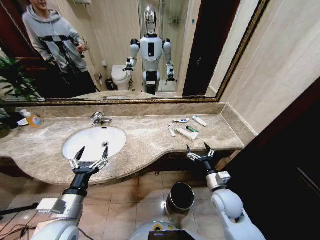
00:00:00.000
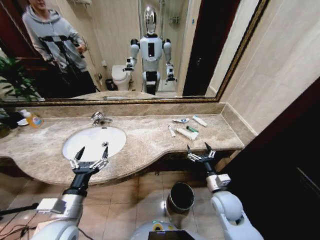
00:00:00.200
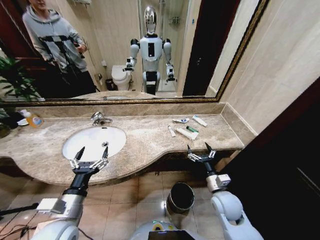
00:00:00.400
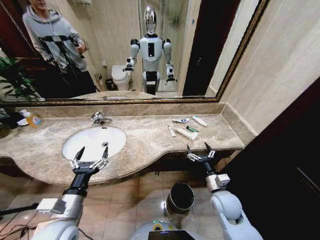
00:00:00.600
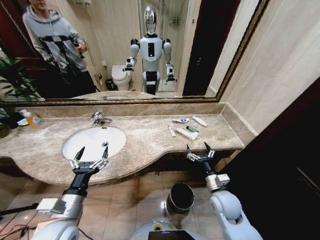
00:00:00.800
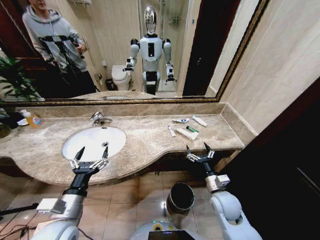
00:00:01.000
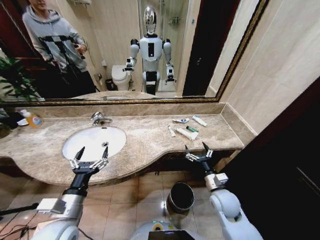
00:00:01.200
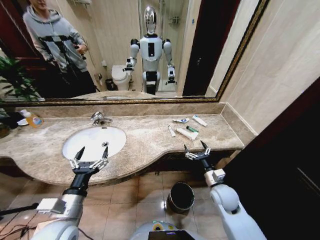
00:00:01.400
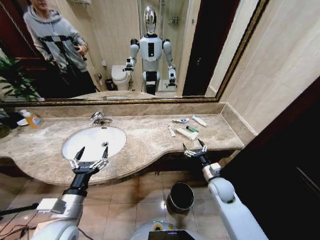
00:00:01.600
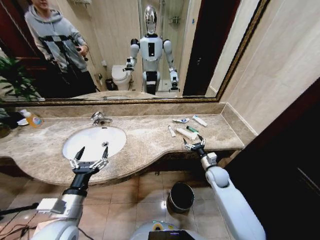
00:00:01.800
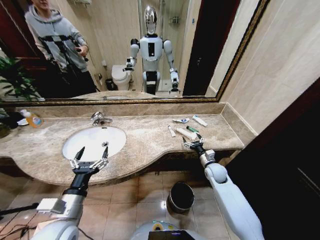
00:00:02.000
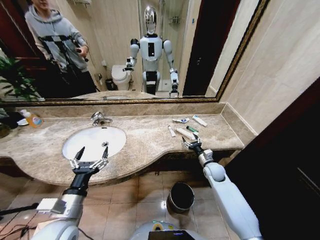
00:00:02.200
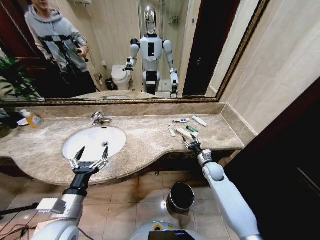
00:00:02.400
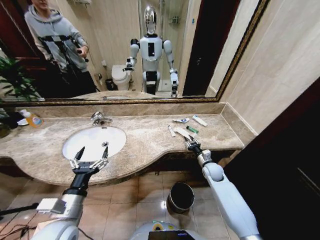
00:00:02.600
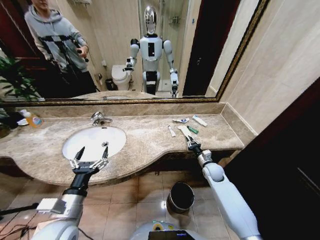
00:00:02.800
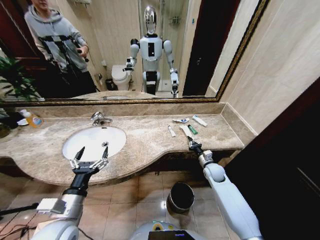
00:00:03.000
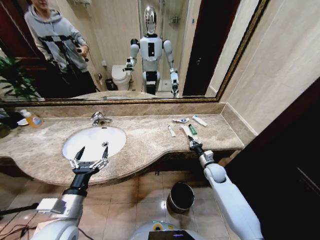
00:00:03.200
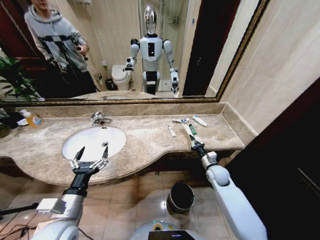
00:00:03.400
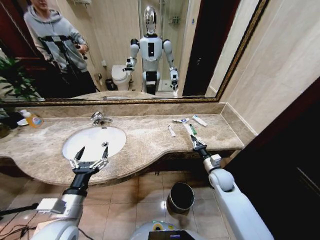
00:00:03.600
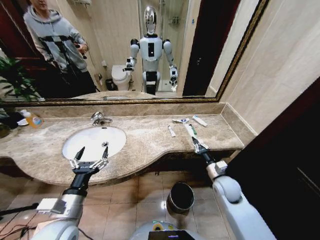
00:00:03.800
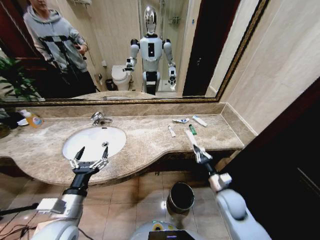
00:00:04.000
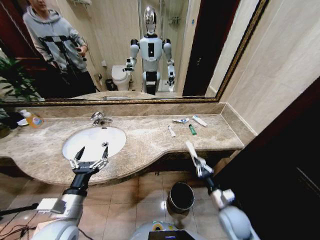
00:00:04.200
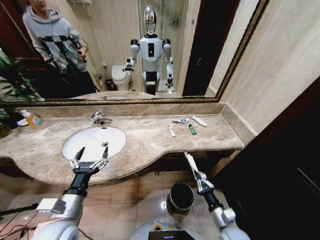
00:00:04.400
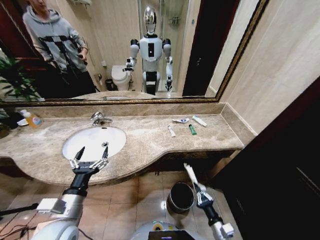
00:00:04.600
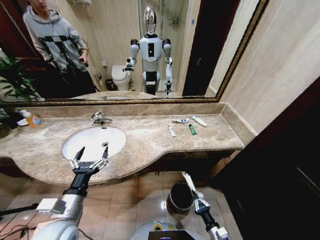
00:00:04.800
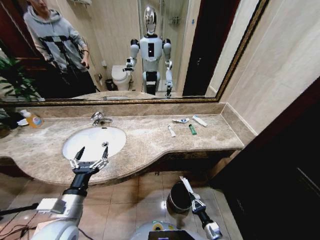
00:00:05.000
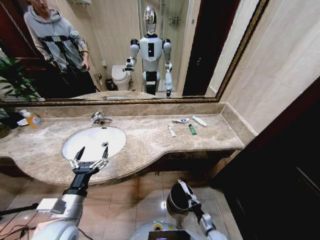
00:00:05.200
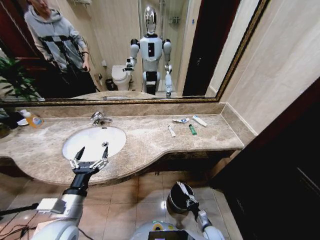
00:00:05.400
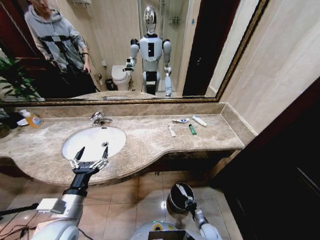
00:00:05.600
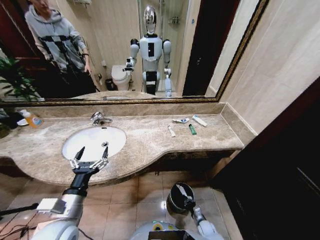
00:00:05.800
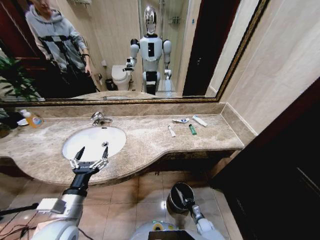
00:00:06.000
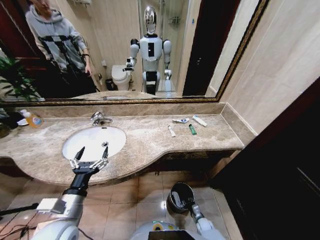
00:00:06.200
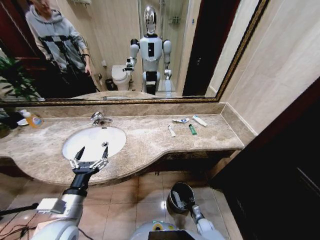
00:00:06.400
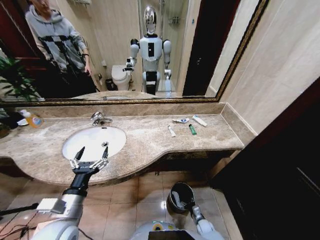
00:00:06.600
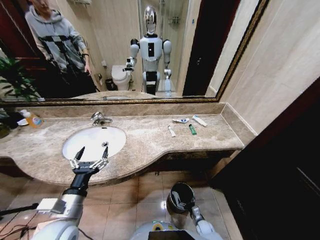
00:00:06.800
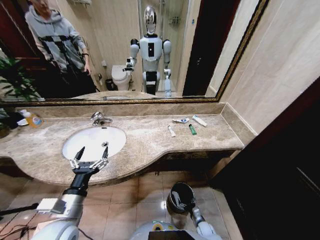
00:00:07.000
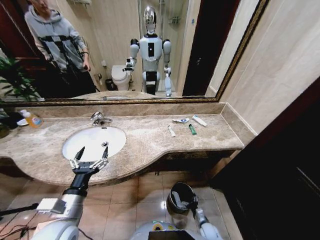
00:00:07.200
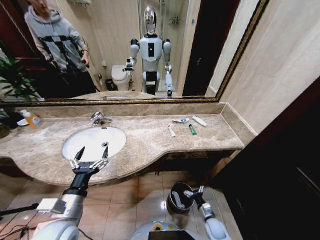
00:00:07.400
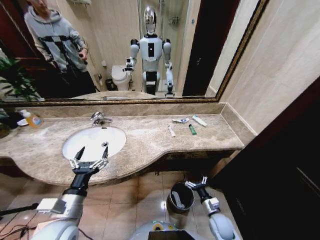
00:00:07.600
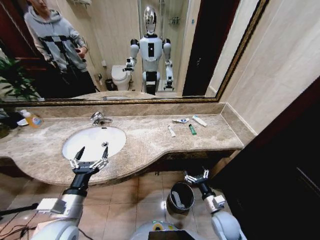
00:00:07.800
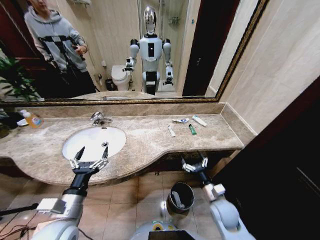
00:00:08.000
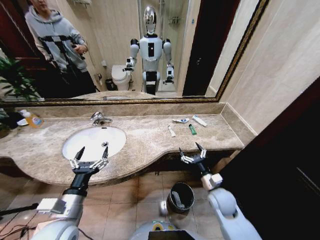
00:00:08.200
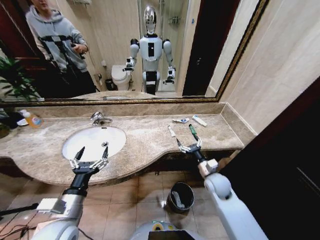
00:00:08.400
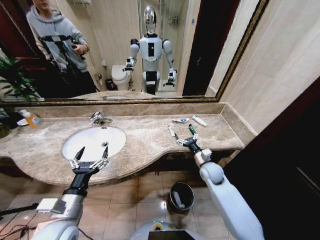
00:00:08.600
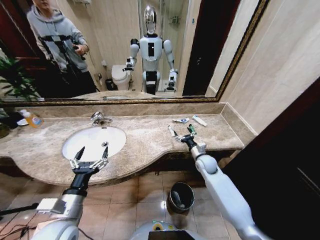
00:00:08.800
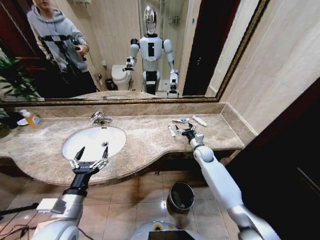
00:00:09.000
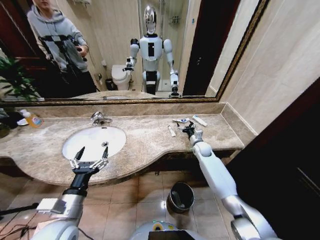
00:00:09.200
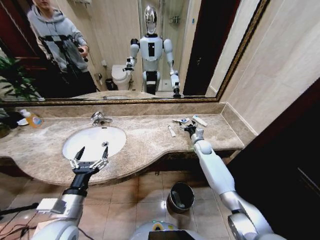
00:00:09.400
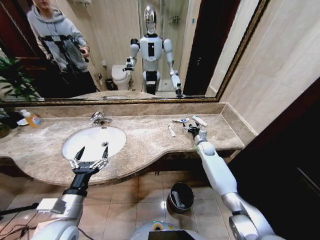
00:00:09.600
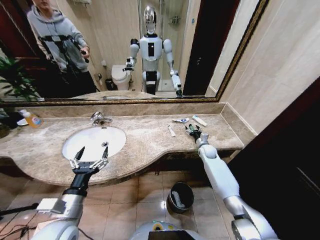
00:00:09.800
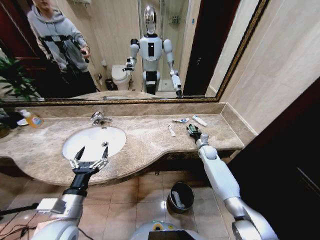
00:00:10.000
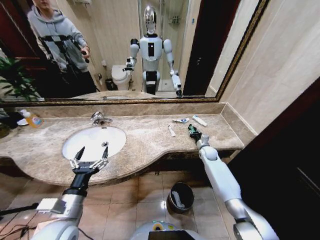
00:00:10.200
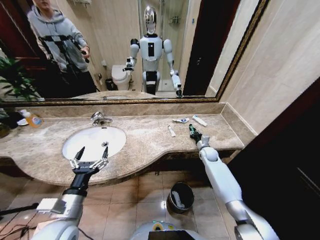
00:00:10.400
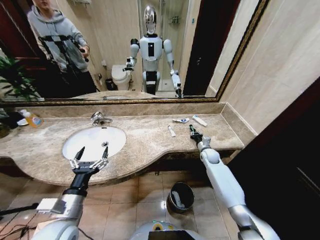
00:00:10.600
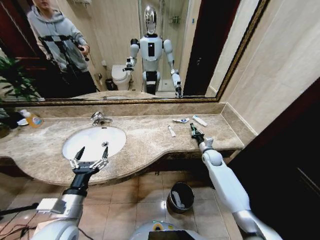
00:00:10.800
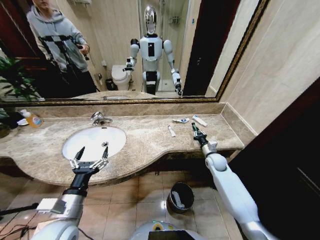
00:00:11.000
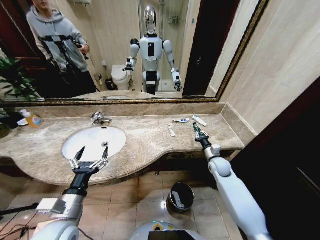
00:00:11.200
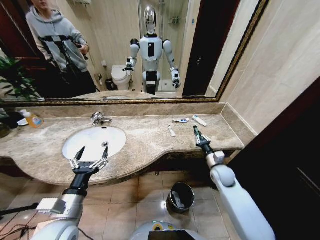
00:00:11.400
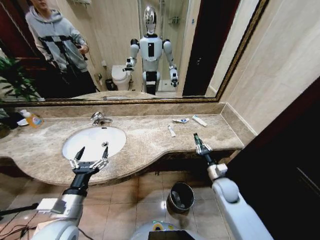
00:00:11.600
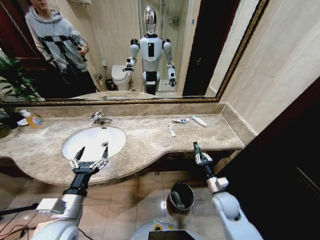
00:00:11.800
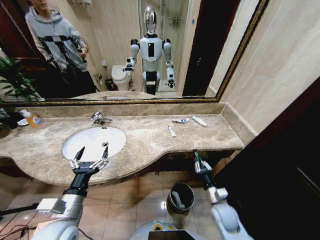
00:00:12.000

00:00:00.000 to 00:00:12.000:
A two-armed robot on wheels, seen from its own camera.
Task of the whole recording: Pick up the trash from the sink and place it in the trash bin.
00:00:01.600 to 00:00:03.000: The right gripper heads forward, covering approximately 10 cm, and closes up.
00:00:03.000 to 00:00:04.400: The right gripper goes approximately 25 cm backward.
00:00:04.400 to 00:00:06.000: The right gripper goes roughly 30 cm downward.
00:00:06.000 to 00:00:07.600: The right gripper travels upward by about 20 cm, and opens its fingers.
00:00:07.600 to 00:00:09.000: The right gripper is displaced forward and upward by roughly 30 cm.
00:00:09.000 to 00:00:10.400: The right gripper travels to the right by roughly 5 cm, and closes its fingers.
00:00:10.400 to 00:00:12.000: The right gripper moves backward, roughly 30 cm.

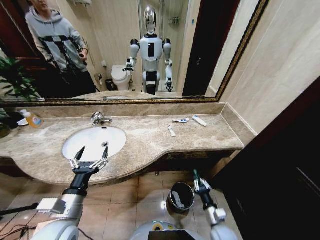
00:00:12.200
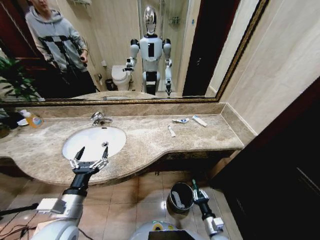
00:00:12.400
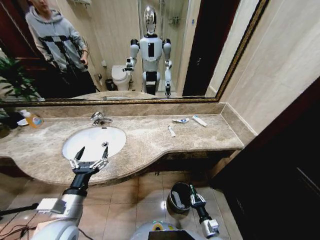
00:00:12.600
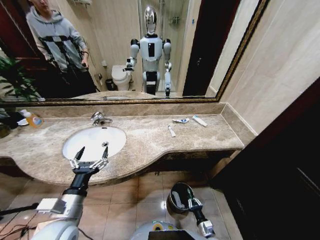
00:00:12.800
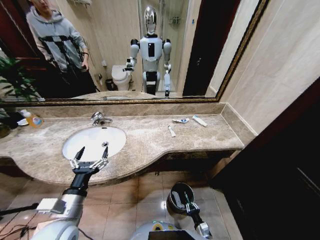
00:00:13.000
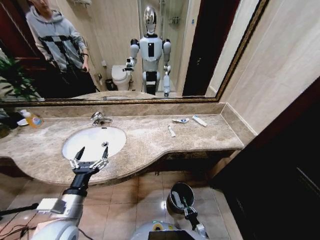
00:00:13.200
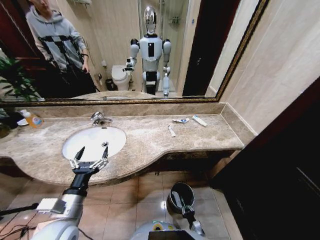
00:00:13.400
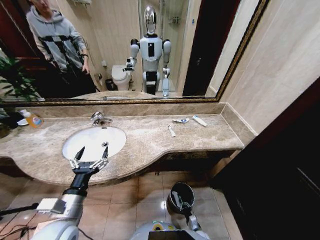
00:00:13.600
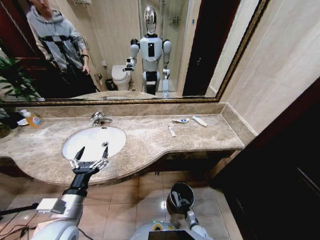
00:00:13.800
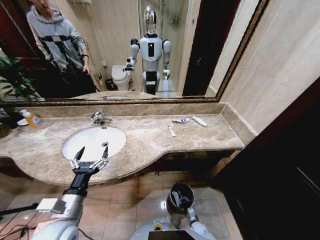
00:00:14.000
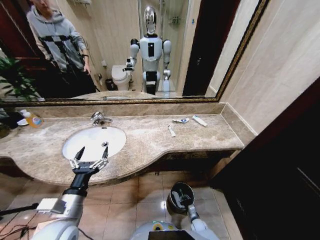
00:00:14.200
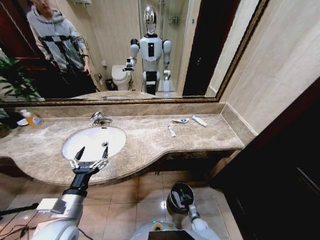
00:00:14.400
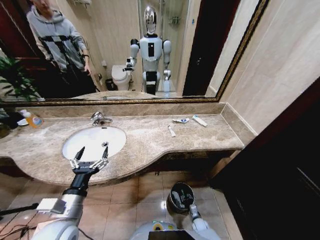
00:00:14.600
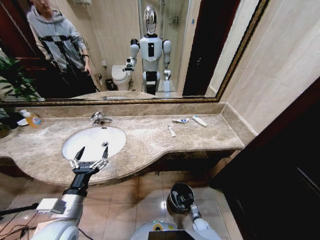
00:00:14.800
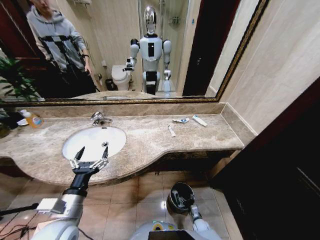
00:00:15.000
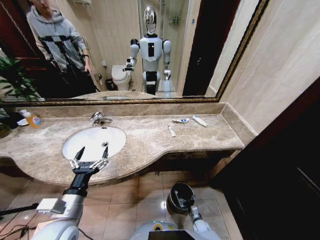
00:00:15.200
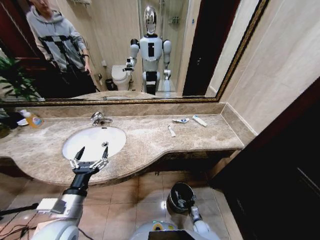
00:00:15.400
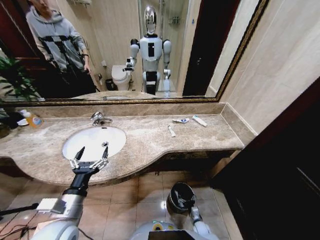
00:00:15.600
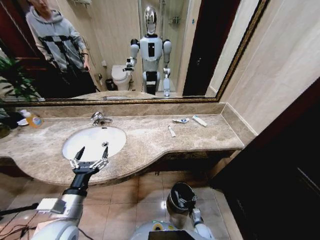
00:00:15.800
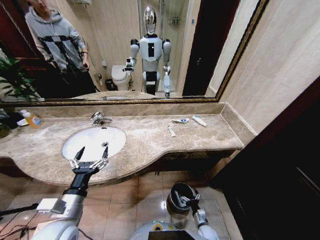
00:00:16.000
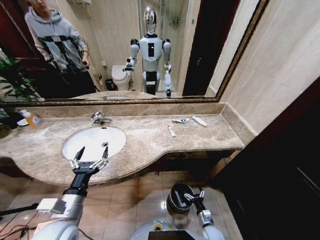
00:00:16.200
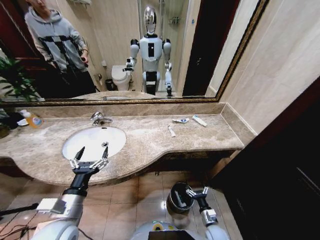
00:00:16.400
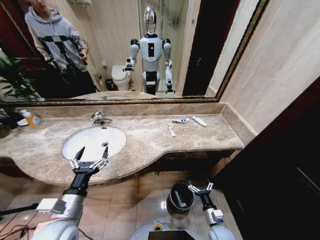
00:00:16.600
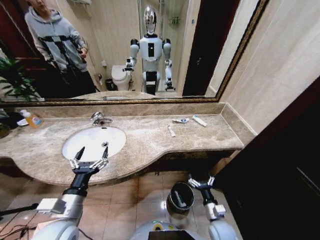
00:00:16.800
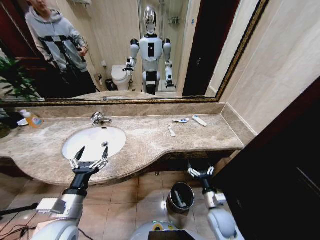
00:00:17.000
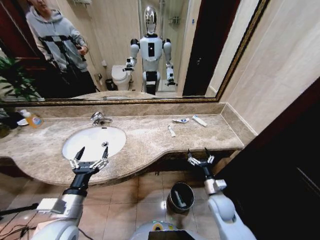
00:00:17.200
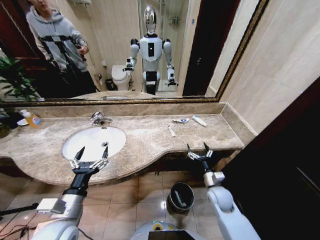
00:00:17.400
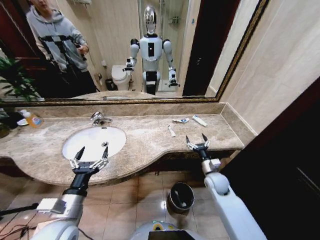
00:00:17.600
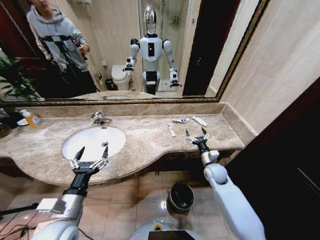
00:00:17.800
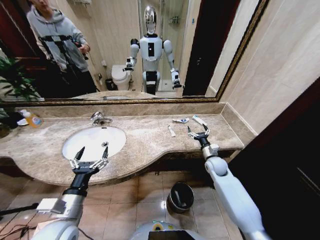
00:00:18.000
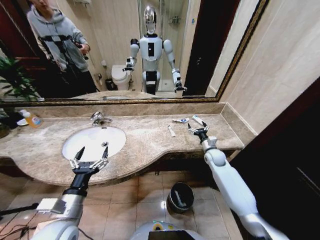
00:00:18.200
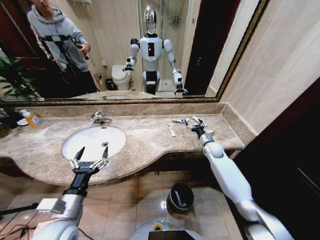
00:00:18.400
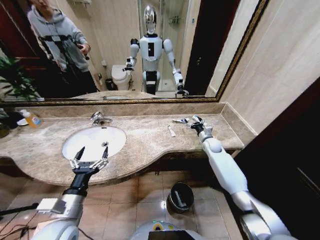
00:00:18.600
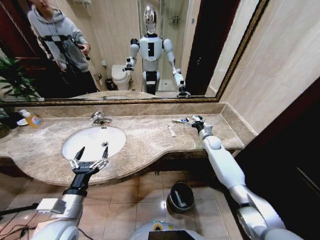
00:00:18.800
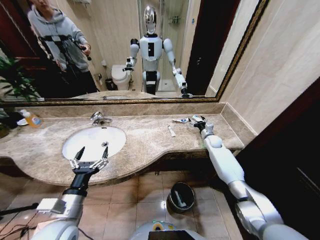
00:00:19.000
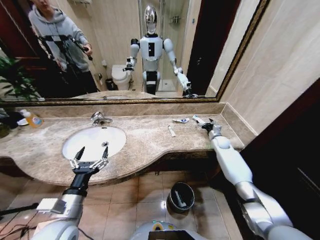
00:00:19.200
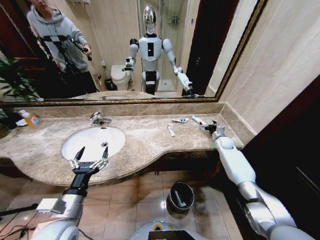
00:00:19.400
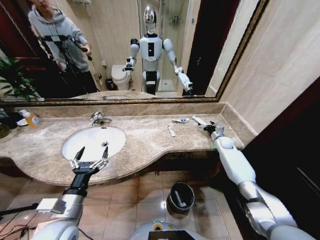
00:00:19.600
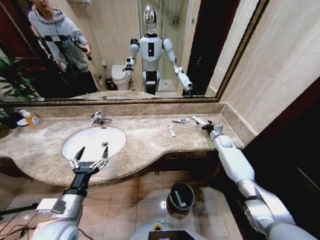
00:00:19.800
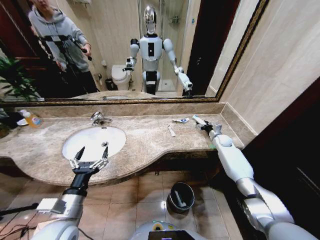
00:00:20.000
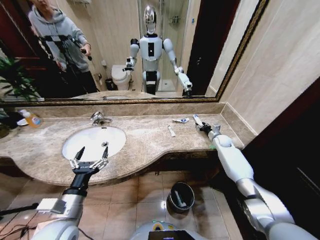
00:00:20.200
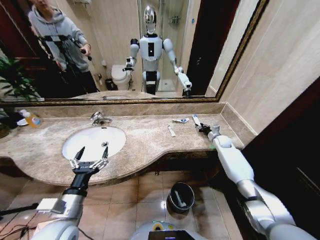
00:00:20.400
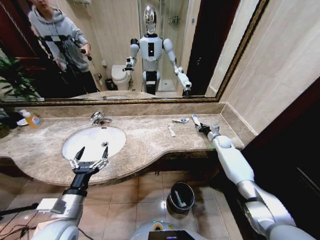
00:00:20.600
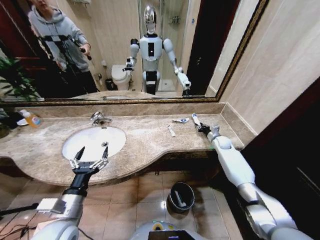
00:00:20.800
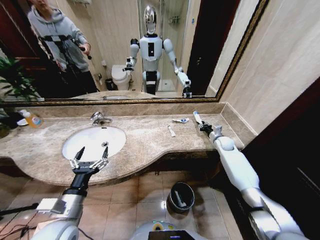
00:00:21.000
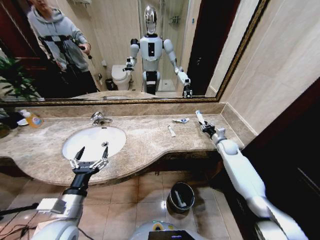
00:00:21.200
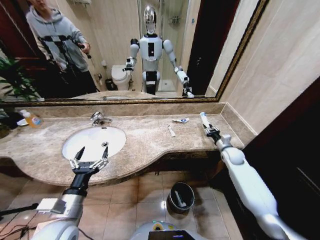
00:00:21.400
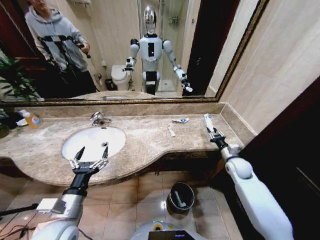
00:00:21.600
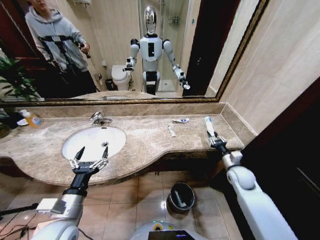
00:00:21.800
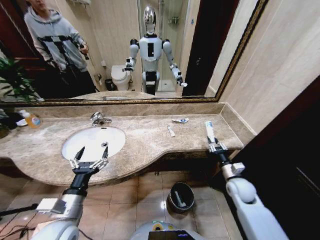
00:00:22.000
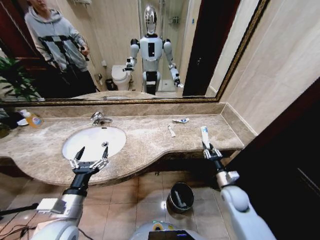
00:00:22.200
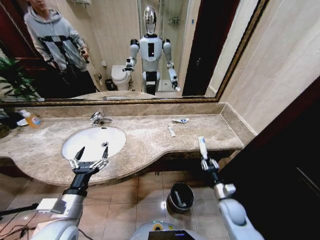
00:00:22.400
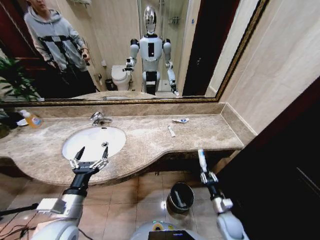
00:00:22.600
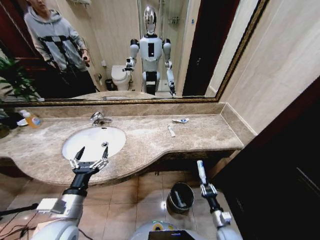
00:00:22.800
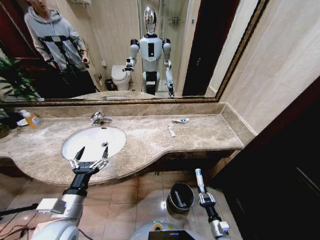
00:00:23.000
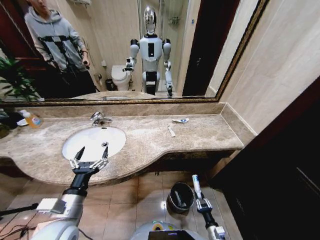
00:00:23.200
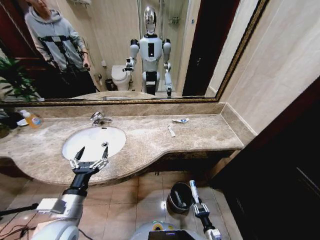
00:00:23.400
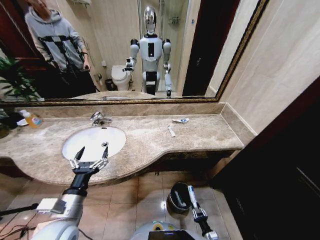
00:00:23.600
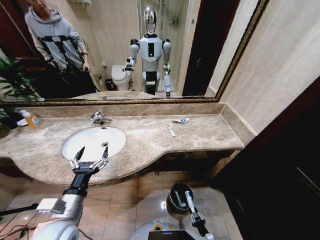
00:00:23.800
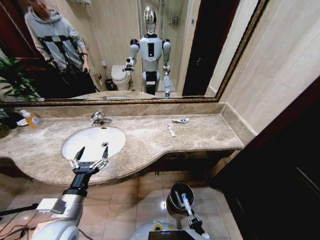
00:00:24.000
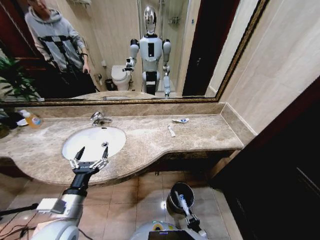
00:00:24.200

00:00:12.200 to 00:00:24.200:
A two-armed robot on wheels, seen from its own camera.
Task of the whole recording: Pick up the trash from the sink and place it in the trash bin.
00:00:12.200 to 00:00:13.800: The right gripper moves downward, about 25 cm.
00:00:13.800 to 00:00:15.200: The right gripper opens its fingers.
00:00:15.200 to 00:00:16.600: The right gripper shifts some 20 cm upward.
00:00:16.600 to 00:00:18.200: The right gripper travels forward and upward by roughly 35 cm.
00:00:18.200 to 00:00:19.800: The right gripper shifts approximately 15 cm forward and to the right.
00:00:19.800 to 00:00:21.200: The right gripper shifts about 5 cm backward, and closes.
00:00:21.200 to 00:00:22.600: The right gripper goes about 35 cm backward and downward.
00:00:22.600 to 00:00:24.200: The right gripper heads downward and backward, covering roughly 25 cm.
